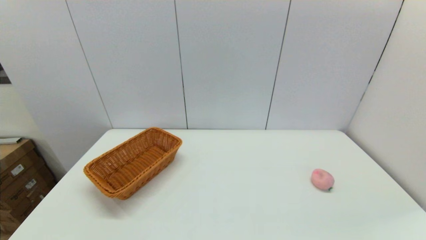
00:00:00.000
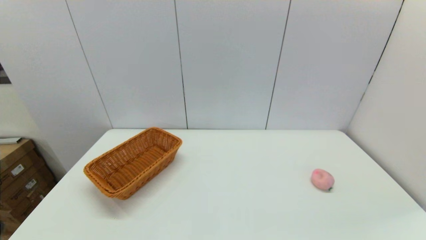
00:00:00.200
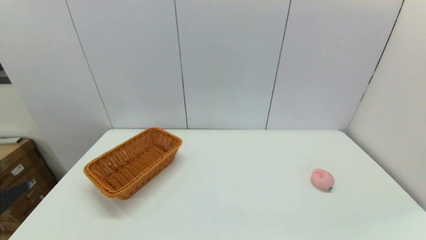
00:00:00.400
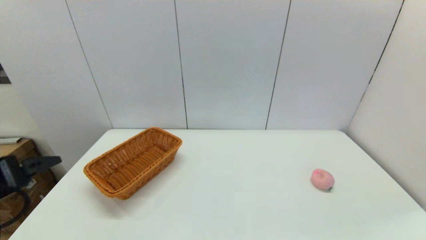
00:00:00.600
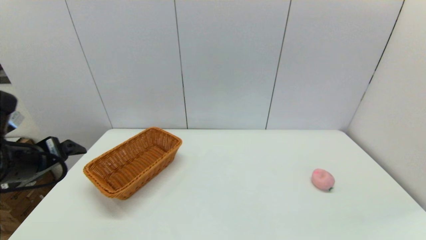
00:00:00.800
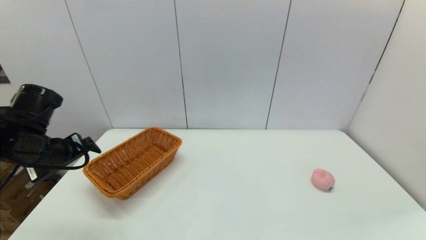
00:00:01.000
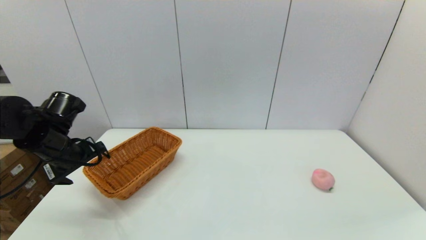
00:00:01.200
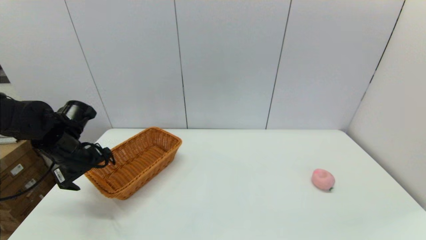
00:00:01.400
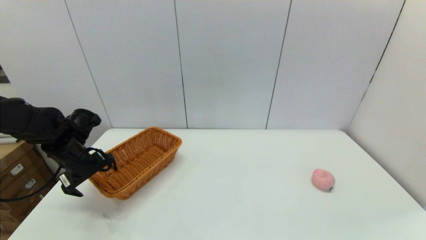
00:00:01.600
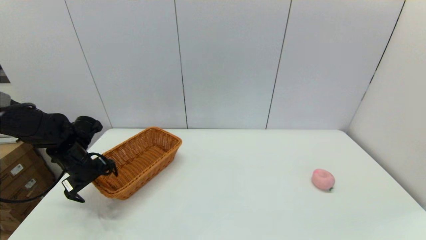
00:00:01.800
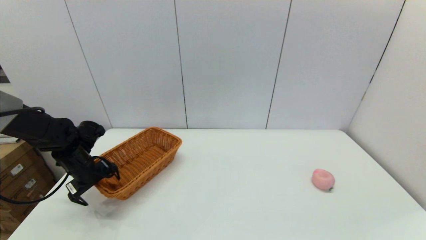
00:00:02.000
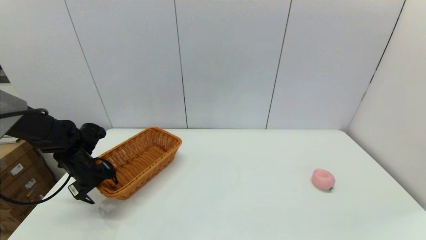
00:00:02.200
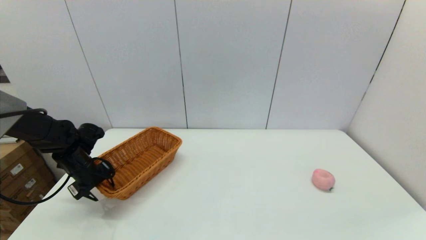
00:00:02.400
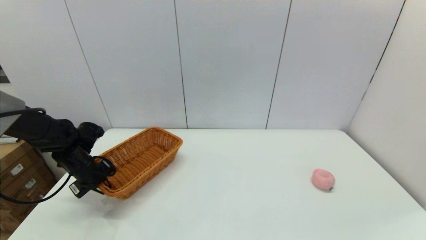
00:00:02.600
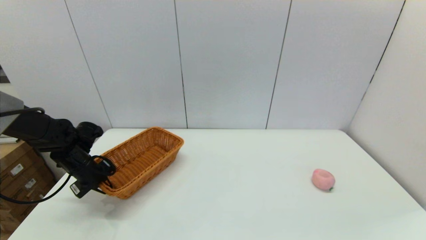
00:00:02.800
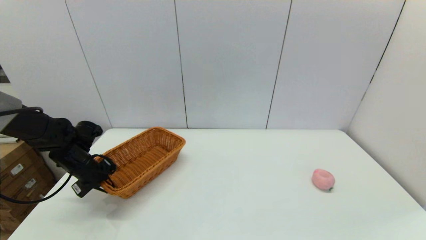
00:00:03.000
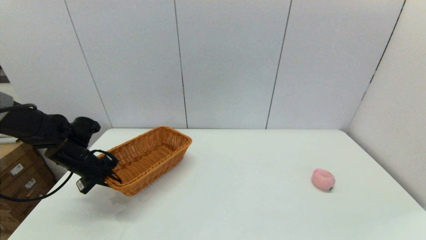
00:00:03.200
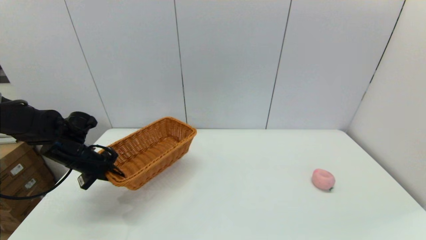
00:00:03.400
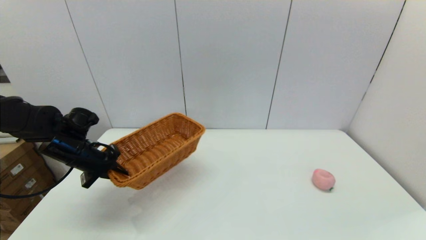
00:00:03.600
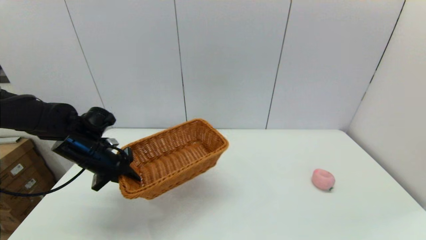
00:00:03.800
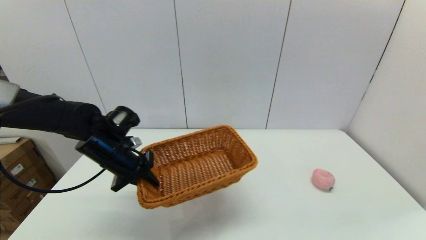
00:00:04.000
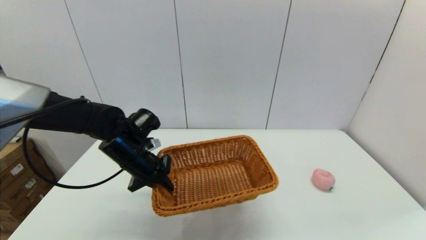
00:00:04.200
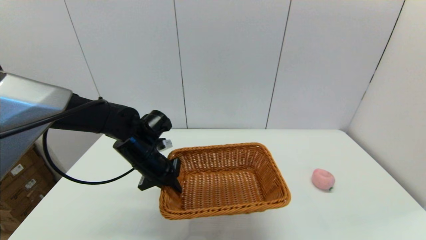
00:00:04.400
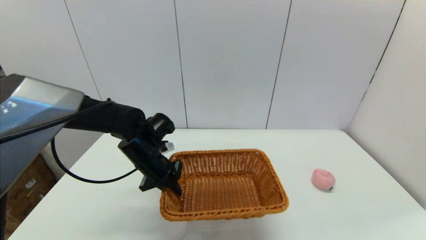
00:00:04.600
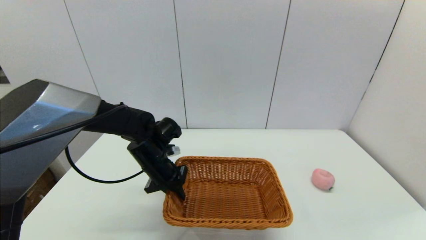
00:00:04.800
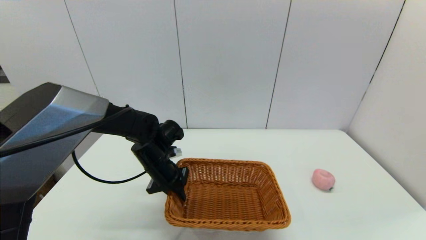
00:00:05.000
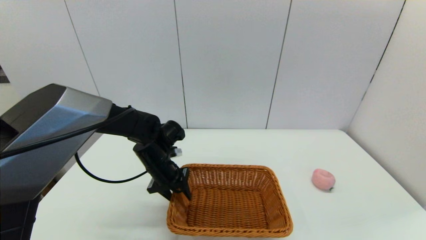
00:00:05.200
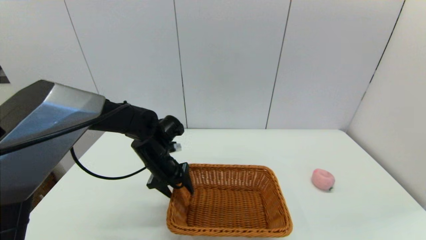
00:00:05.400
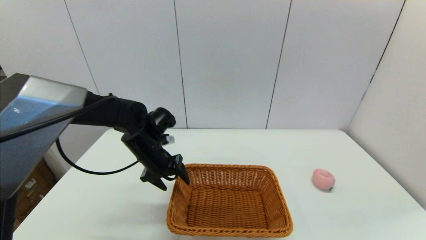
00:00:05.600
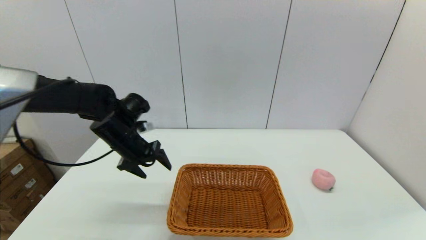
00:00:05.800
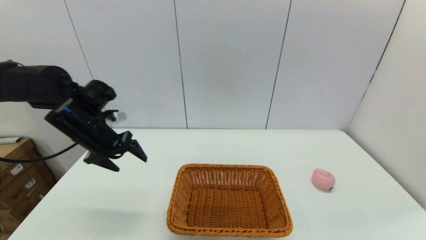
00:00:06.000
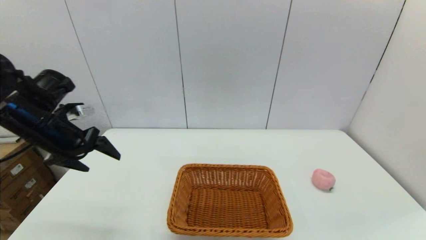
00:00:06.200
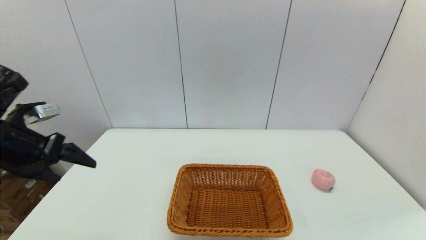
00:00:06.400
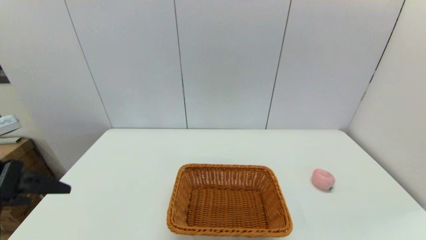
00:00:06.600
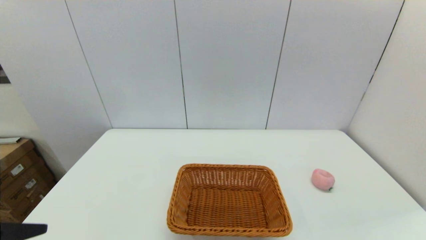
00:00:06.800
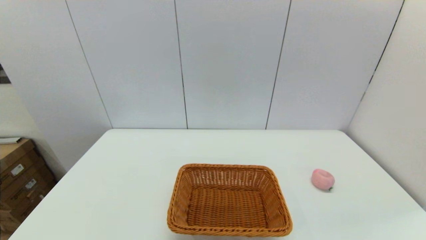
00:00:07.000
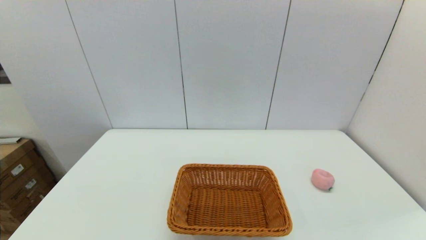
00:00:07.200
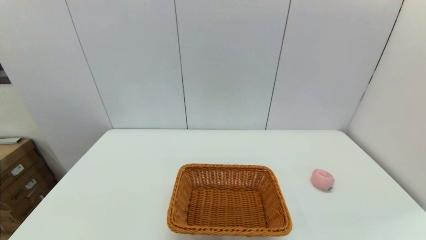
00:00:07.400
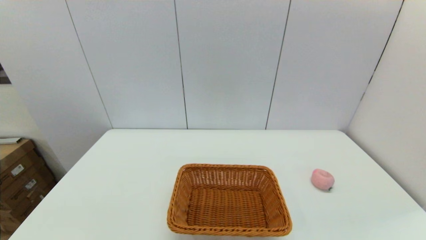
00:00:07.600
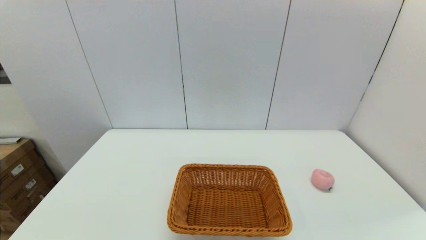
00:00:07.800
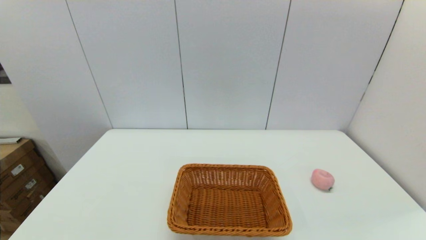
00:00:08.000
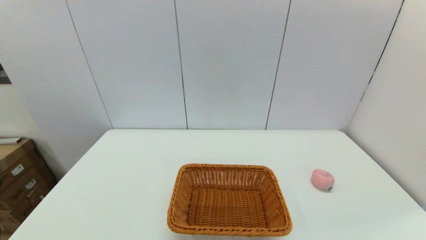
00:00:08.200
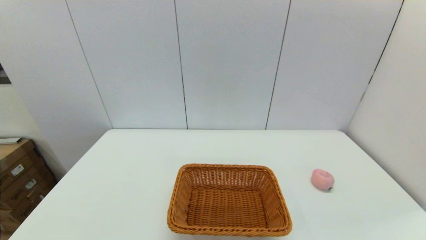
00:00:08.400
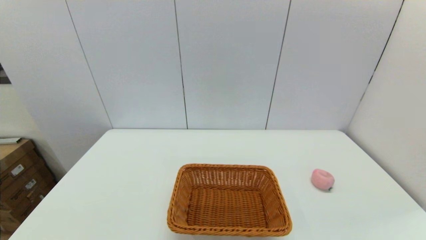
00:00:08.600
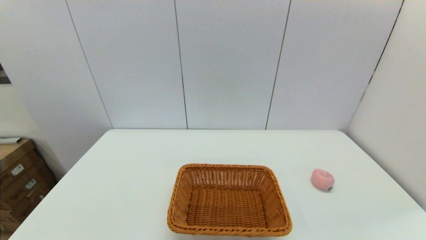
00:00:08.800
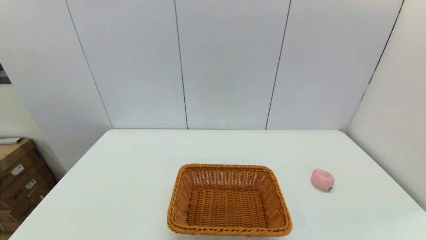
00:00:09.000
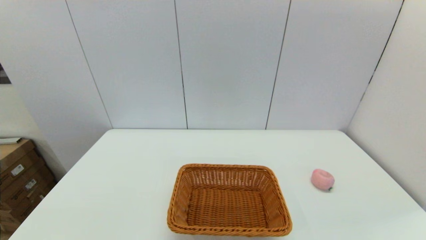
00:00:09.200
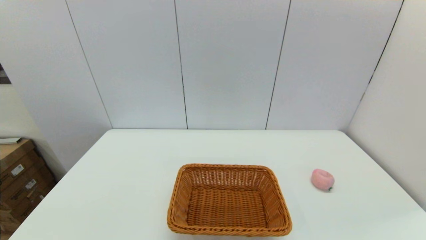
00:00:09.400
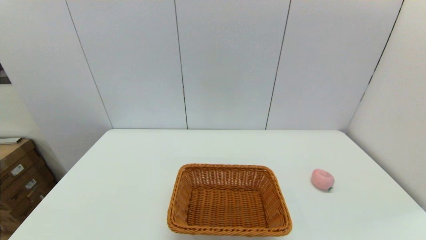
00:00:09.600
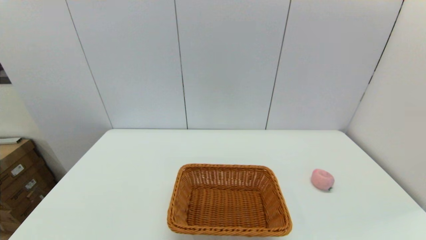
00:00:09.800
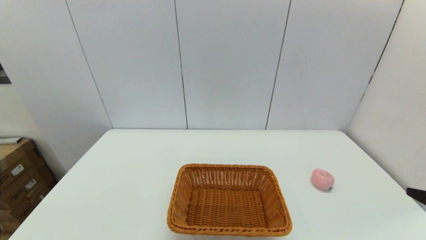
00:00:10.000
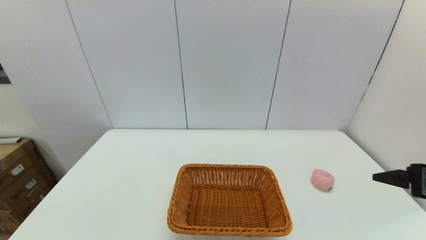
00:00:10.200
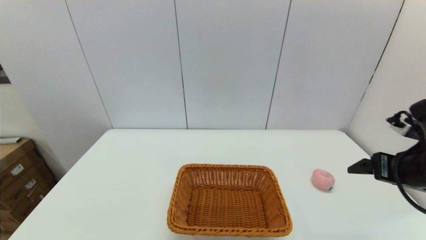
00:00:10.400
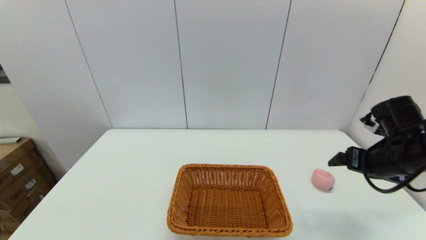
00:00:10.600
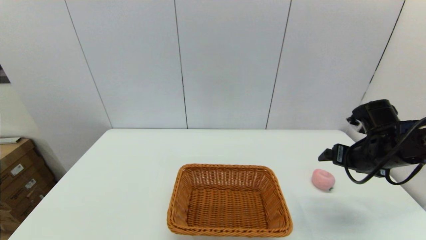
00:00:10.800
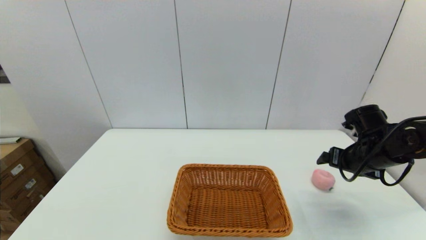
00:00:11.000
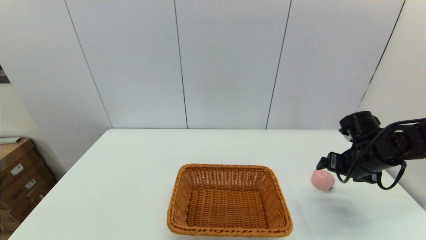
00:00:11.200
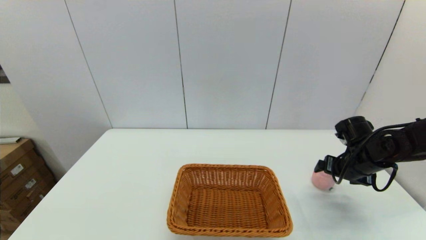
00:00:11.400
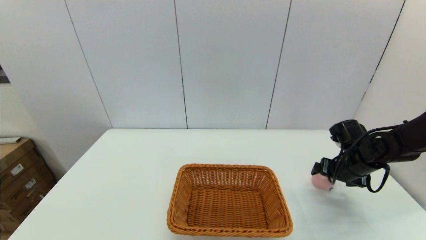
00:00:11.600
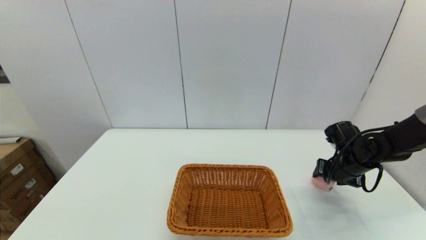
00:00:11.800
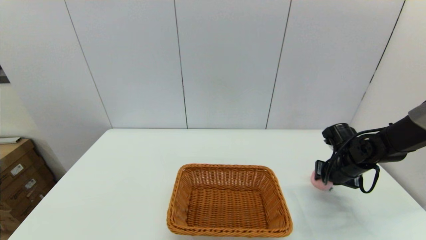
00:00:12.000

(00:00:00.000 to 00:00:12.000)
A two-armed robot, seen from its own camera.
Step, 00:00:00.000 - 00:00:02.800: Grasp the light basket with the left gripper.
Step, 00:00:03.000 - 00:00:05.200: Place the light basket on the middle of the table with the left gripper.
00:00:00.000 - 00:00:01.600: The left gripper goes approximately 35 cm forward.
00:00:01.600 - 00:00:03.000: The left gripper closes up.
00:00:03.000 - 00:00:04.400: The left gripper travels to the right by roughly 20 cm.
00:00:04.400 - 00:00:06.000: The left gripper heads to the left and upward, covering roughly 15 cm, and opens.
00:00:06.000 - 00:00:07.600: The left gripper goes some 35 cm backward.
00:00:09.000 - 00:00:10.400: The right gripper goes some 25 cm forward and upward.
00:00:10.400 - 00:00:12.000: The right gripper is displaced downward and forward by approximately 20 cm, and closes.

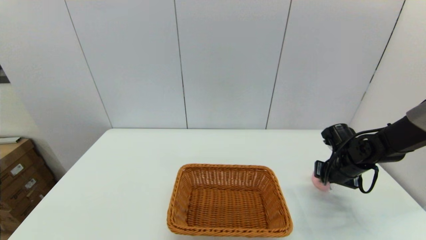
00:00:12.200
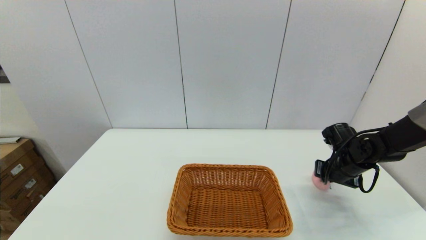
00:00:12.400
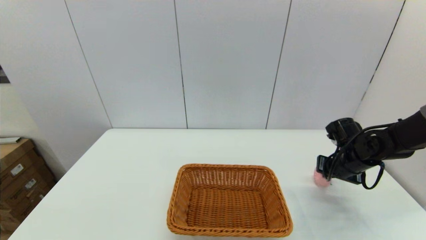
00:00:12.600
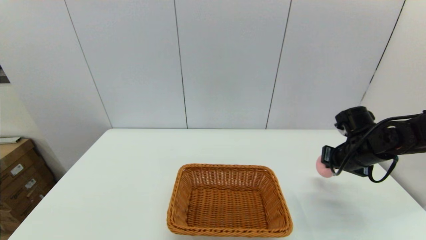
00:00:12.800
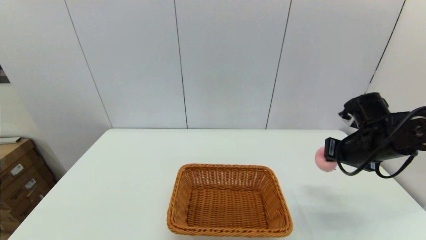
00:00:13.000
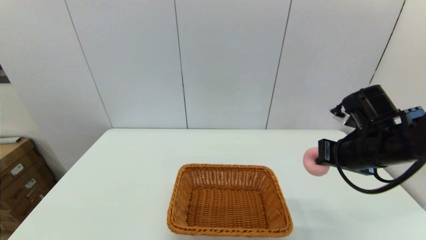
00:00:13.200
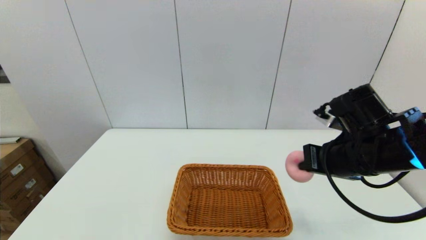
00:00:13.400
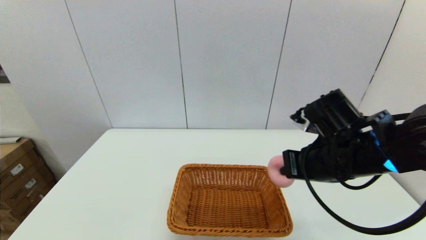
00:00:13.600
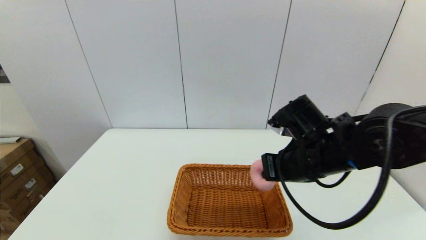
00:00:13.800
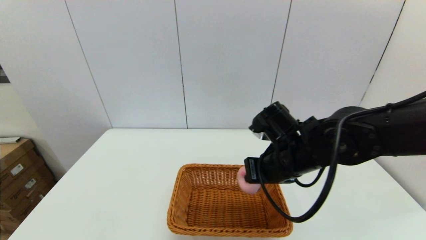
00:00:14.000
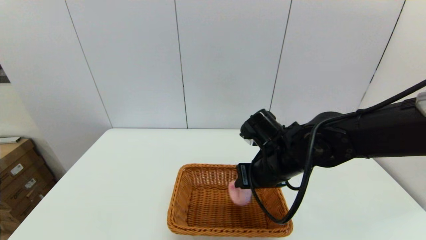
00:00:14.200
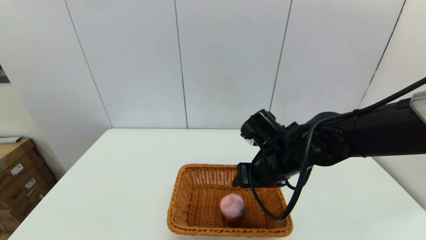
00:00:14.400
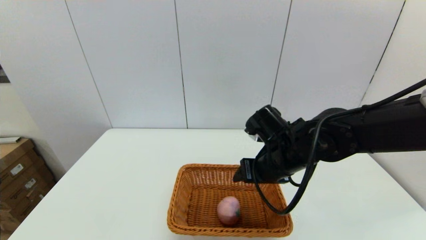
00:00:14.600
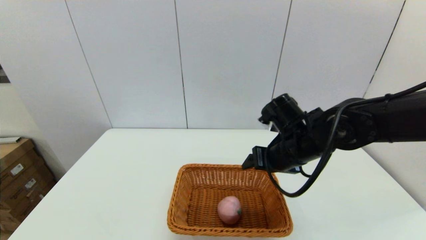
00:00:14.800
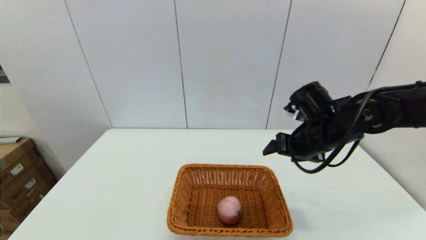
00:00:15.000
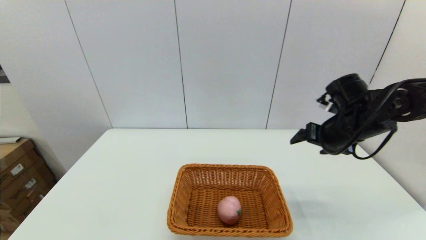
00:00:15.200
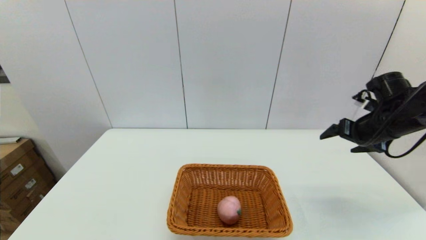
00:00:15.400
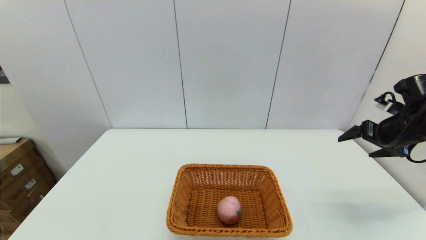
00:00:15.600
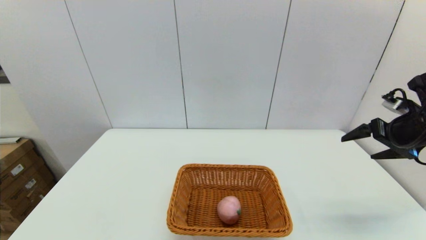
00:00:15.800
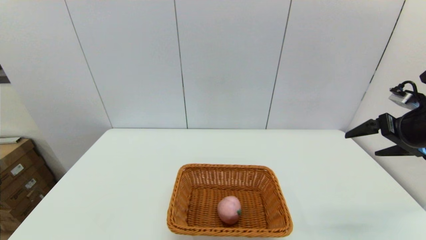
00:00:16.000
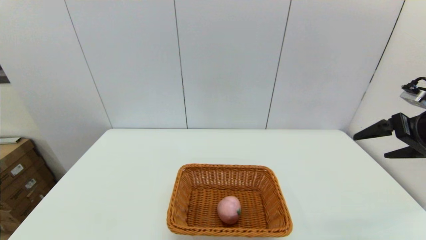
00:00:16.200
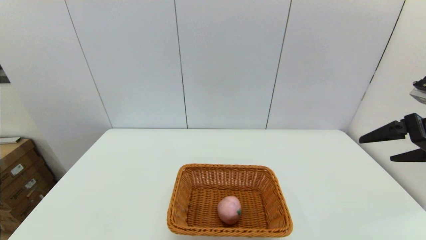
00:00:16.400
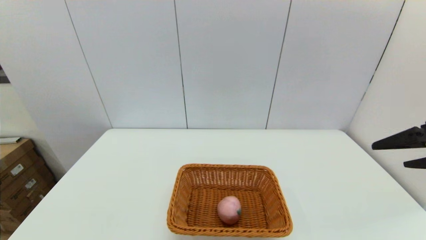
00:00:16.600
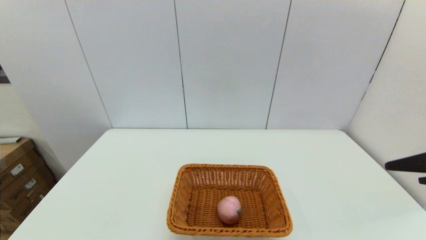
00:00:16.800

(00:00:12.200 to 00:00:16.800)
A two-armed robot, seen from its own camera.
Step, 00:00:12.600 - 00:00:14.400: Place the peach into the light basket with the right gripper.
00:00:12.200 - 00:00:13.800: The right gripper travels to the left, upward and backward by approximately 25 cm.
00:00:13.800 - 00:00:15.200: The right gripper is displaced to the right and forward by about 15 cm, and opens.
00:00:15.200 - 00:00:16.800: The right gripper shifts roughly 20 cm backward.
